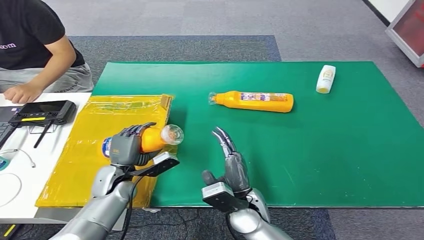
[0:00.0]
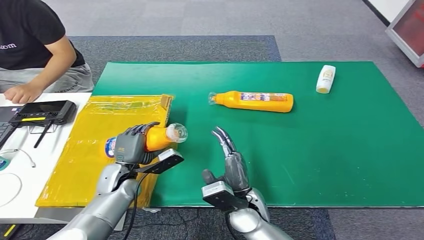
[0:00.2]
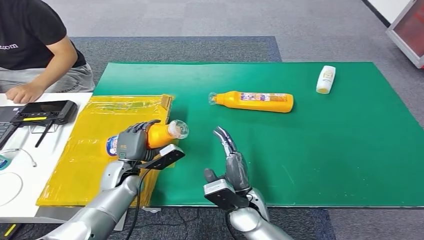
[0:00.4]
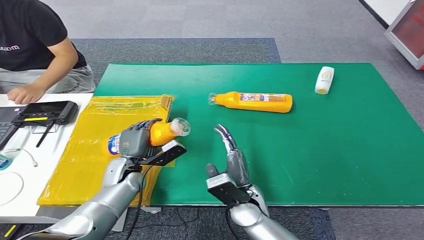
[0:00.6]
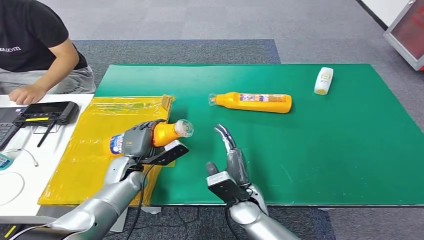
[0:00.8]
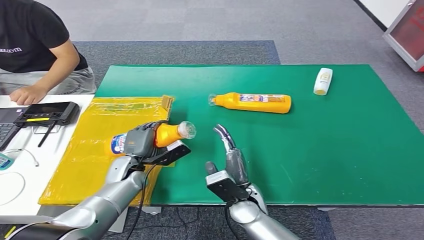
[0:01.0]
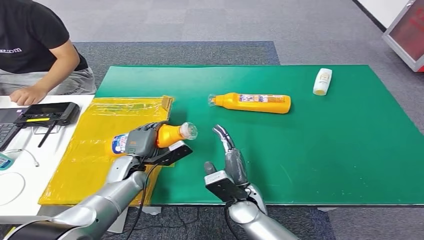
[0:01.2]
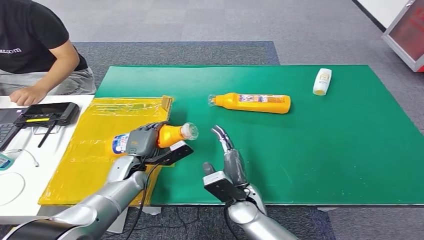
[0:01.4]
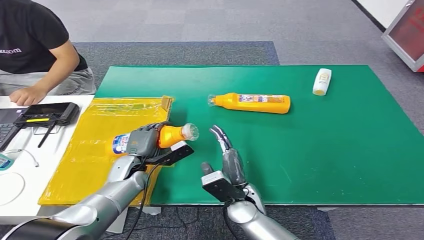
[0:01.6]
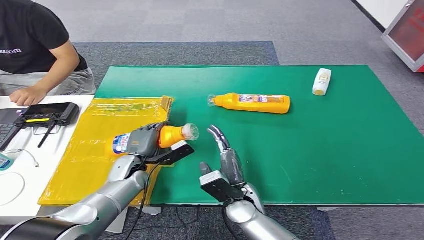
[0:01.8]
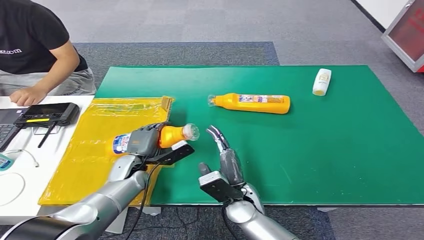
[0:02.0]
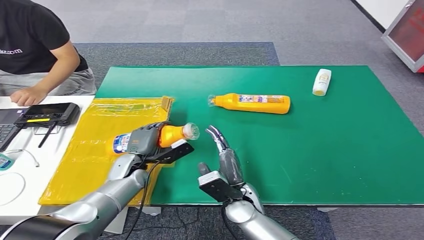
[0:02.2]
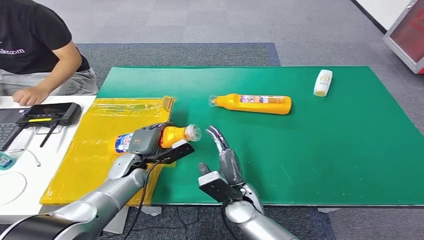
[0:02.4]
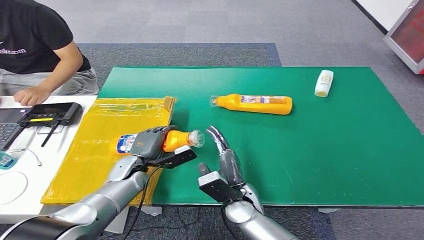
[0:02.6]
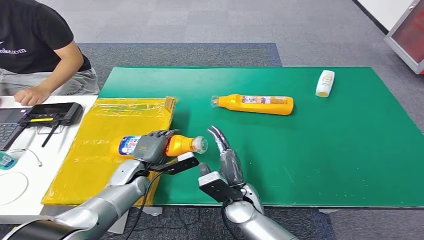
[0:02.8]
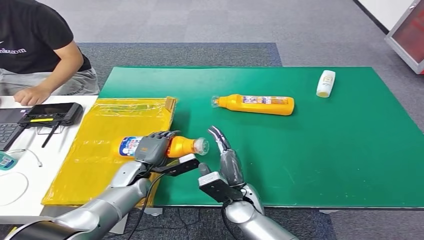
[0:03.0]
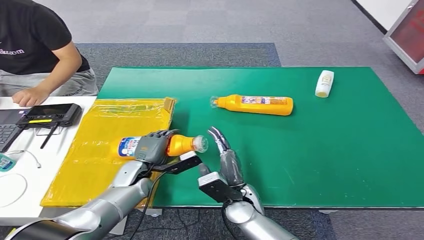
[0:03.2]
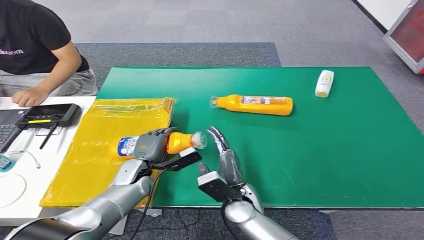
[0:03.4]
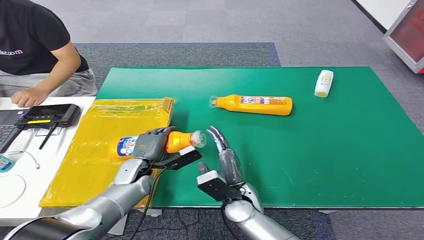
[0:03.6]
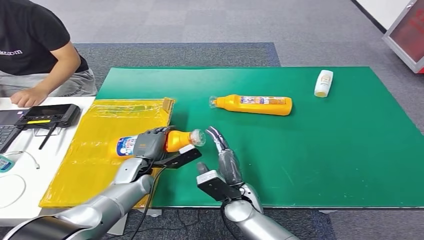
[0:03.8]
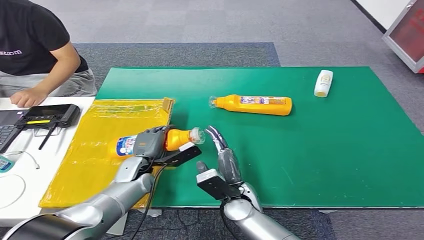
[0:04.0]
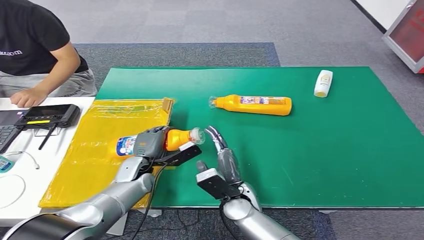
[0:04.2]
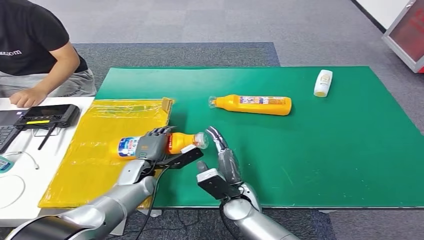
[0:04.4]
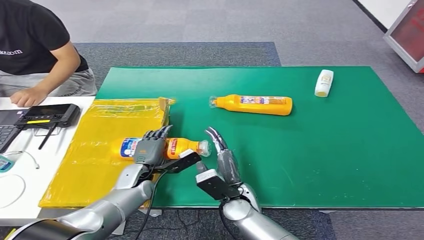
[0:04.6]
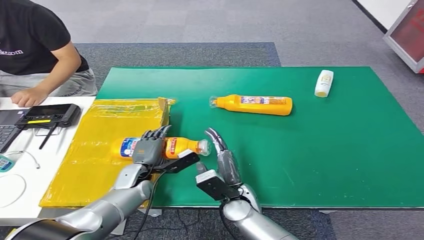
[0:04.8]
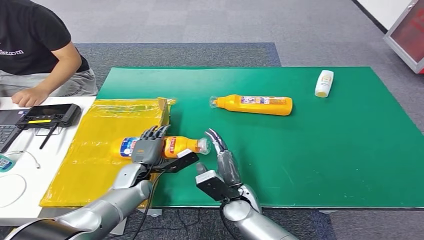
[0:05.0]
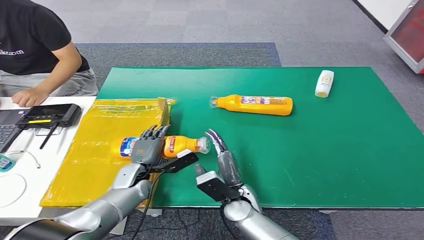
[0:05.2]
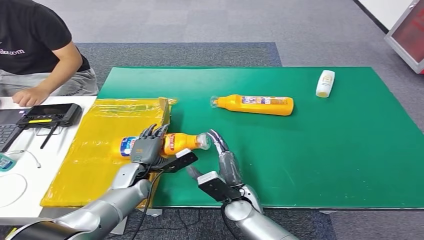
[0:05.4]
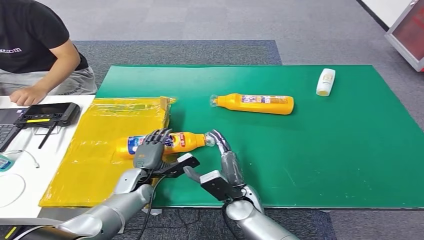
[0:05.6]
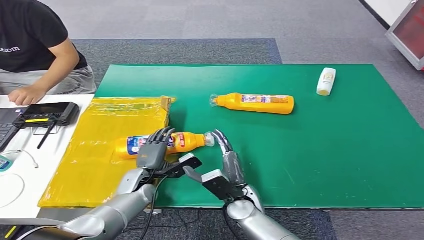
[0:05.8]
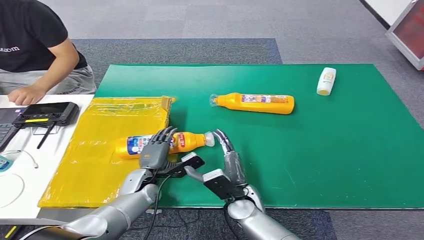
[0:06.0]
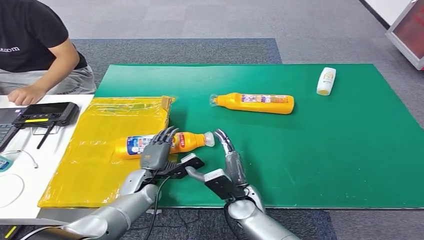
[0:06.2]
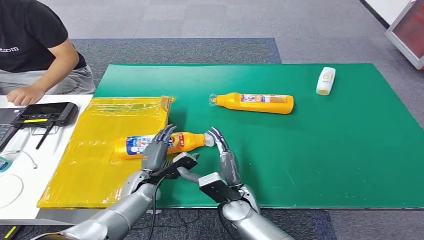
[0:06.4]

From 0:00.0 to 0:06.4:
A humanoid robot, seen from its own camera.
Step, from 0:00.0 to 0:06.4: Turn the bottle to the front side.
From 0:01.6 to 0:04.8: There are only small adjustments of the hands.

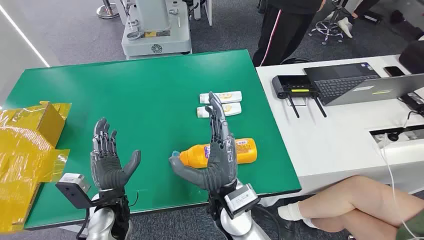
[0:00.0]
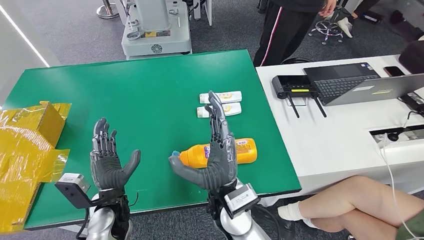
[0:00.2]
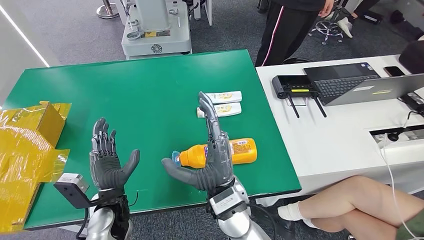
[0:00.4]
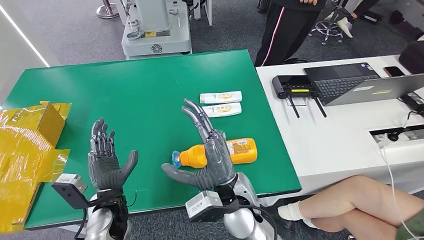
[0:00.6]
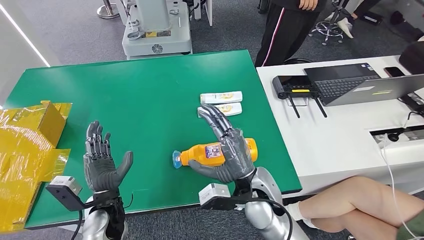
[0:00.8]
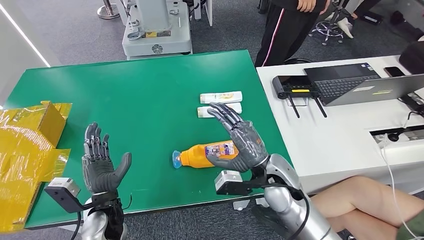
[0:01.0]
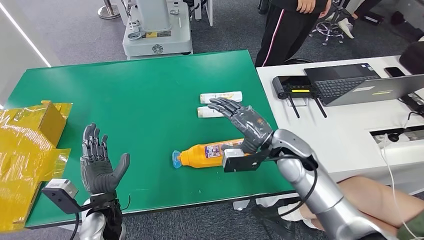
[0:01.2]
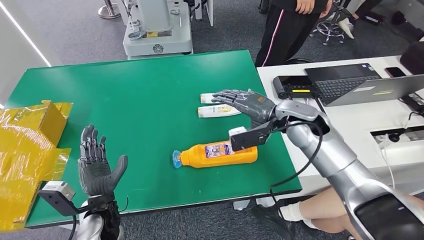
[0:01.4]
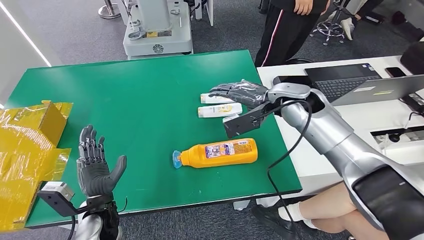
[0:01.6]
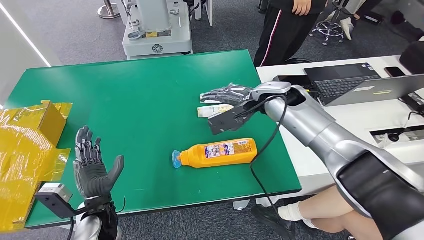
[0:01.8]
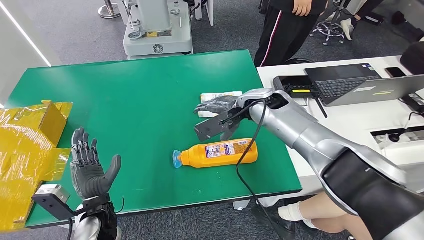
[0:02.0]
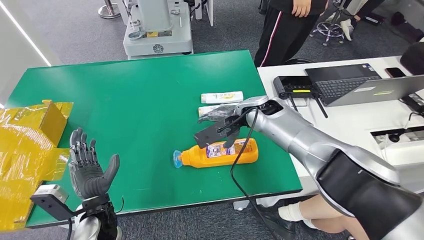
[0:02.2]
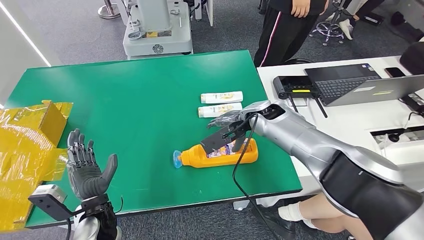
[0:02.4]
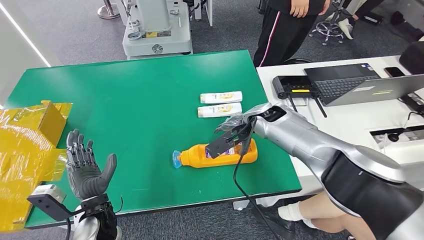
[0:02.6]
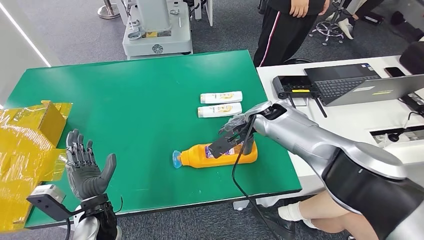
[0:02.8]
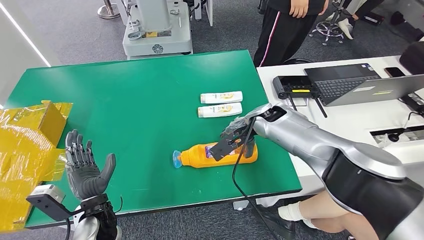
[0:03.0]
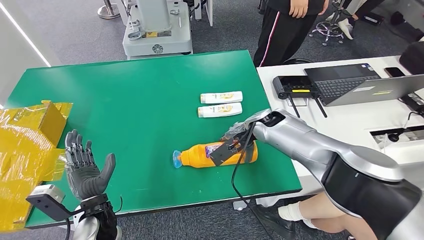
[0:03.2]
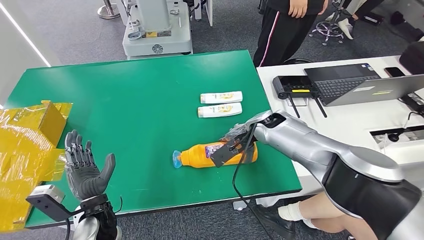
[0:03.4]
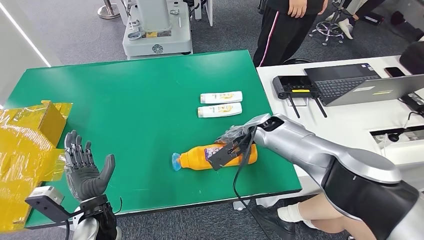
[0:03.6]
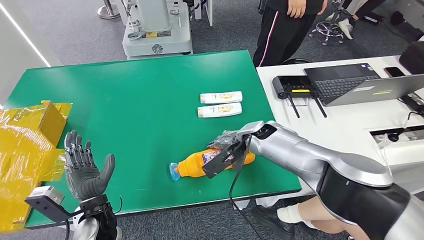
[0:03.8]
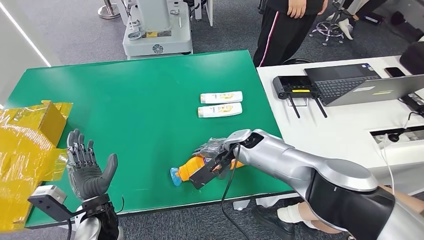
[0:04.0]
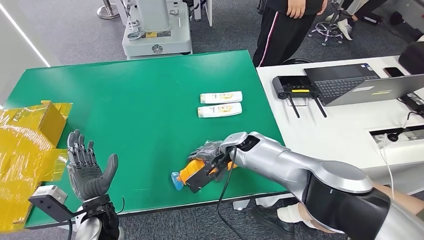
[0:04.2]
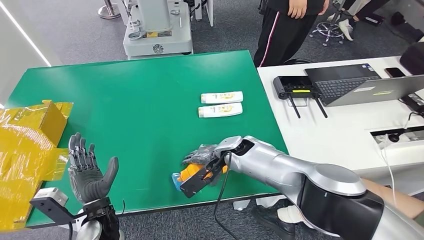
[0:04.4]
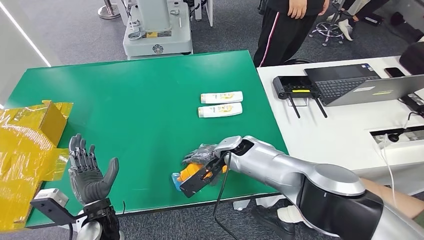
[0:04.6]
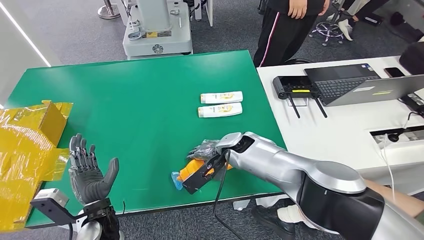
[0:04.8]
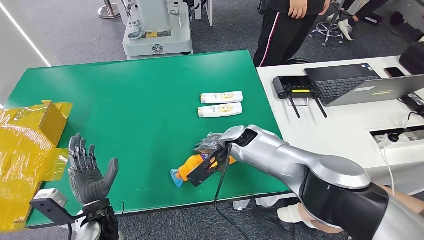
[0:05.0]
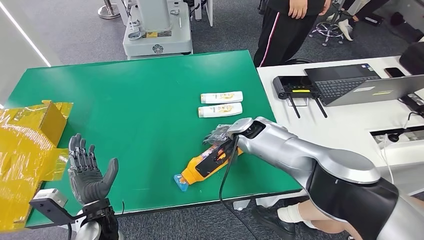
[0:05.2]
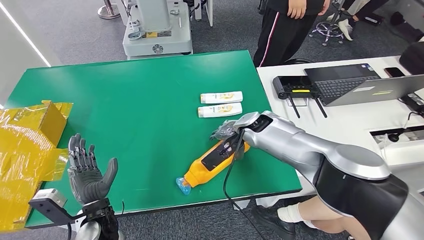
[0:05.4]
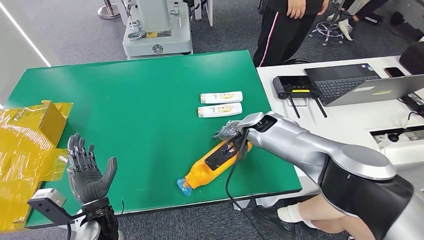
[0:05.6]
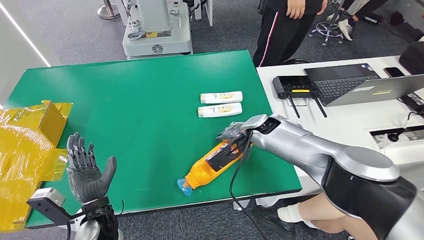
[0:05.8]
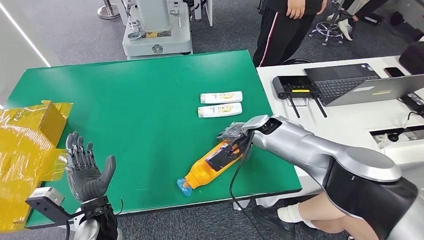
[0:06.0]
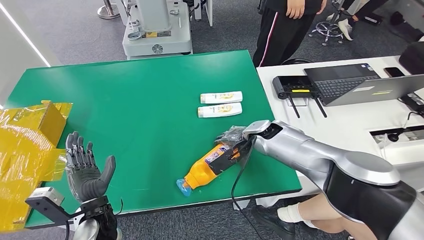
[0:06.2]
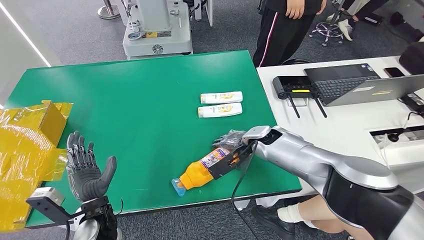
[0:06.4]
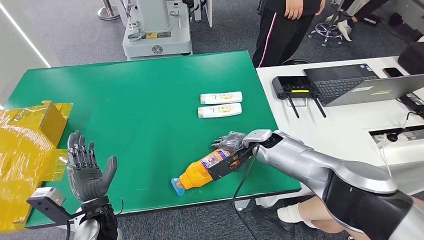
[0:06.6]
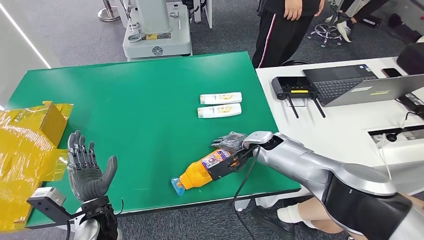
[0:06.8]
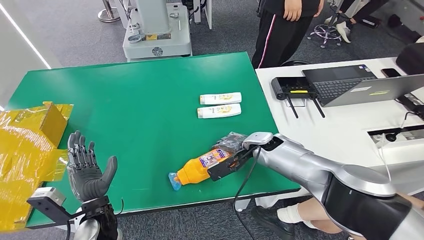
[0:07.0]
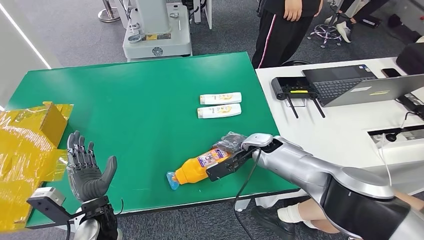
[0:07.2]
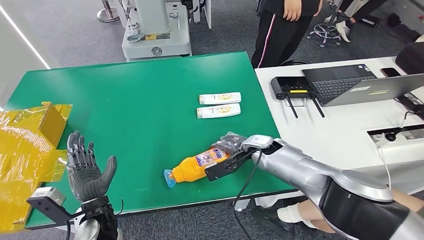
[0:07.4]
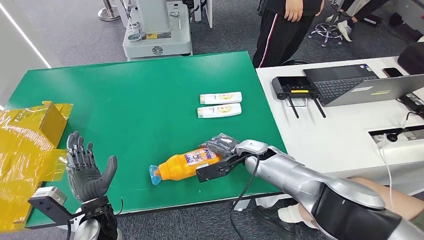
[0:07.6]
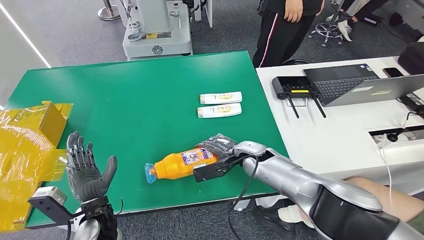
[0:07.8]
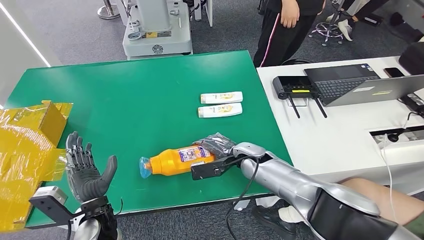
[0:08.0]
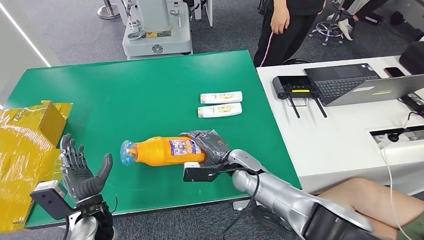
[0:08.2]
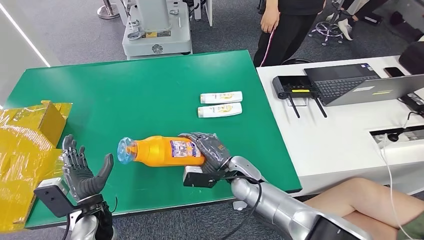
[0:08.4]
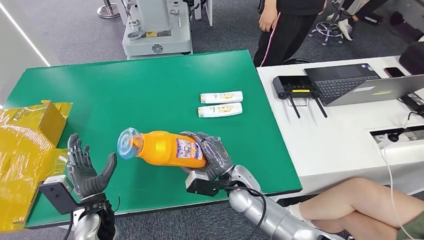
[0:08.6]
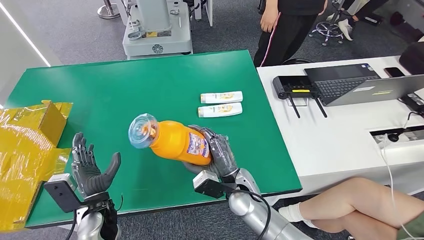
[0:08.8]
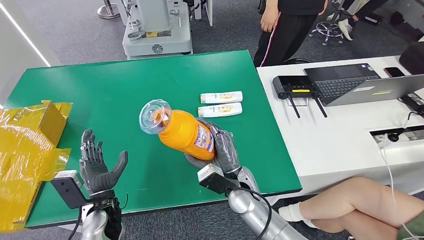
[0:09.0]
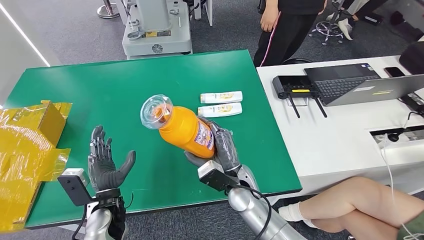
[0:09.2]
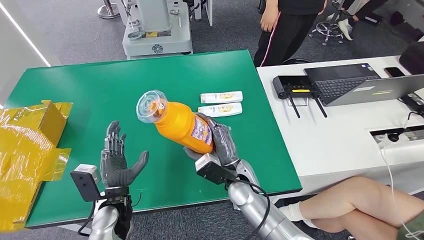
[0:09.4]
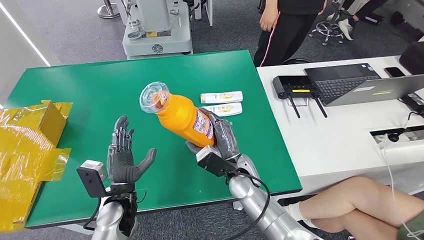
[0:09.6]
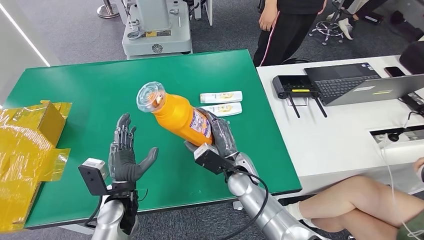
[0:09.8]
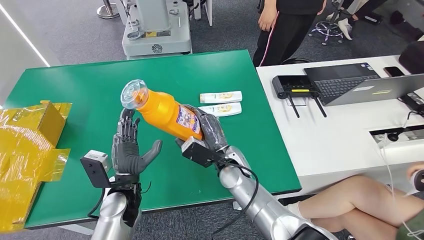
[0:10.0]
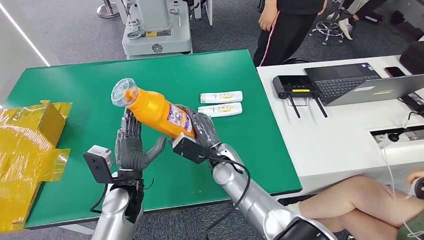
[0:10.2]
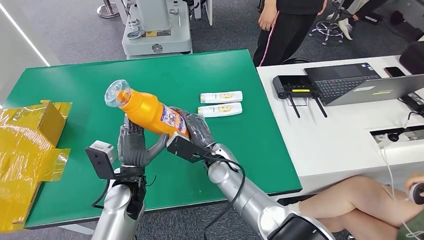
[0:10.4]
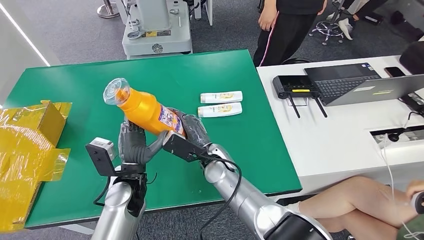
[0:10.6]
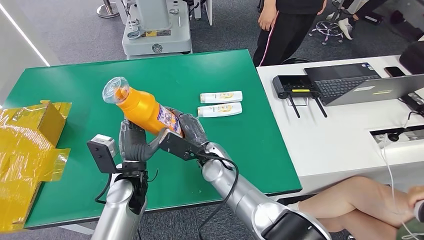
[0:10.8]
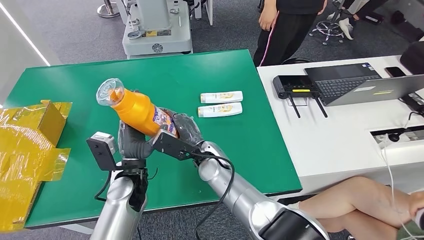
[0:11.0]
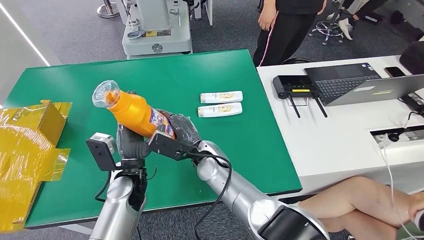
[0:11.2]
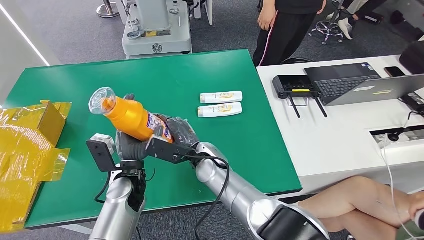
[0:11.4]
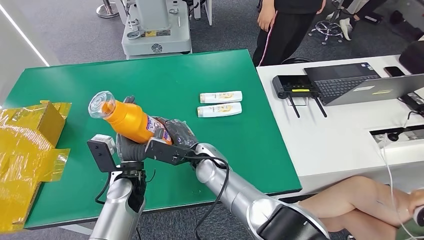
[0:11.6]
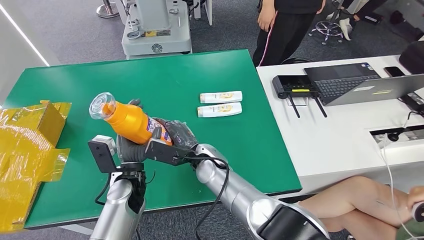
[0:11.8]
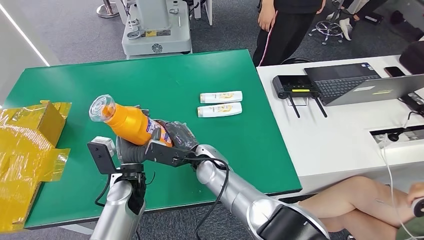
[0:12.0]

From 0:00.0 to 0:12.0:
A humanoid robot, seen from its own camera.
Step, from 0:00.0 to 0:08.2: Pick up the bottle from the table.
From 0:01.6 to 0:03.0: The right hand goes approximately 5 cm downward.
From 0:04.4 to 0:06.0: The right hand goes some 10 cm to the right.
From 0:06.0 to 0:07.6: The right hand heads downward and backward, covering about 10 cm.
From 0:09.0 to 0:10.4: The left hand shifts about 10 cm to the right and upward; the right hand shifts about 5 cm forward.
From 0:10.4 to 0:12.0: There are only small adjustments of the hands.
